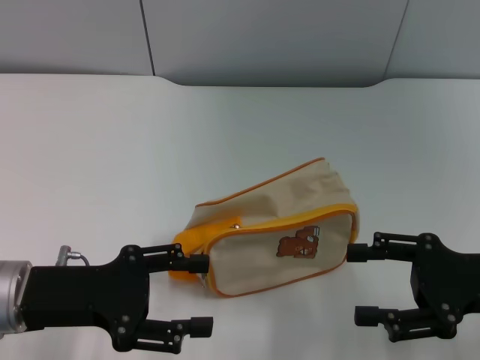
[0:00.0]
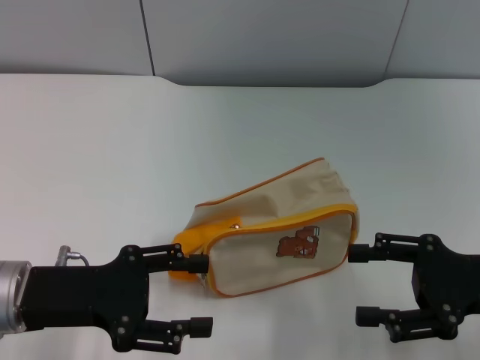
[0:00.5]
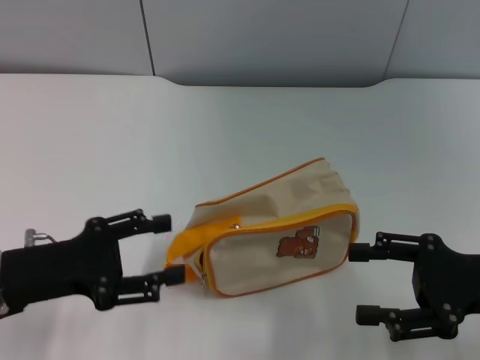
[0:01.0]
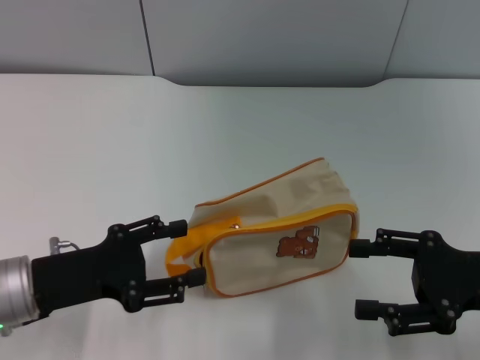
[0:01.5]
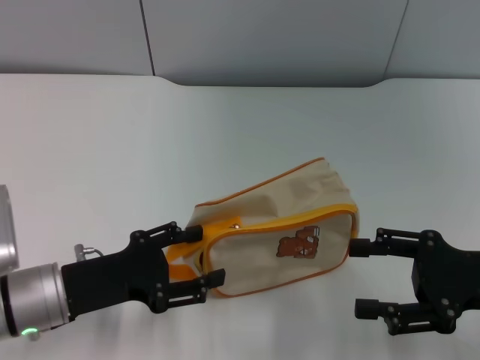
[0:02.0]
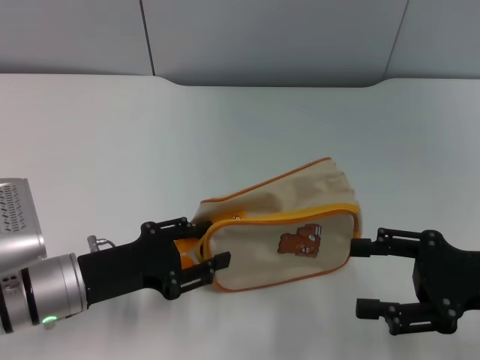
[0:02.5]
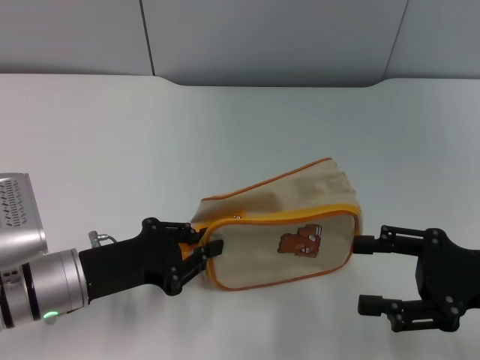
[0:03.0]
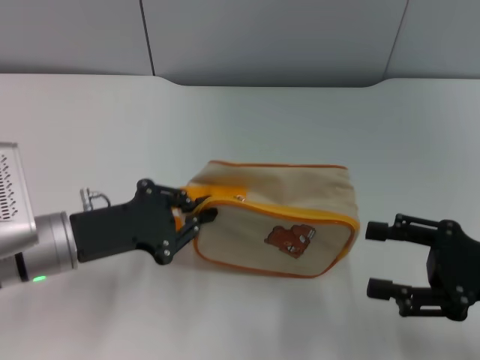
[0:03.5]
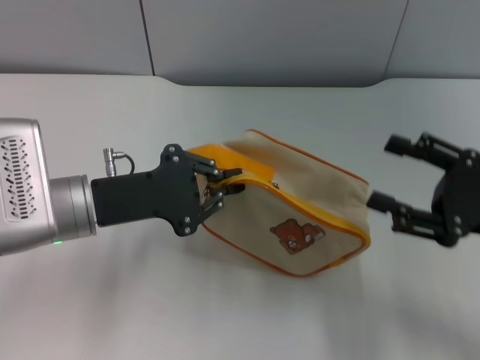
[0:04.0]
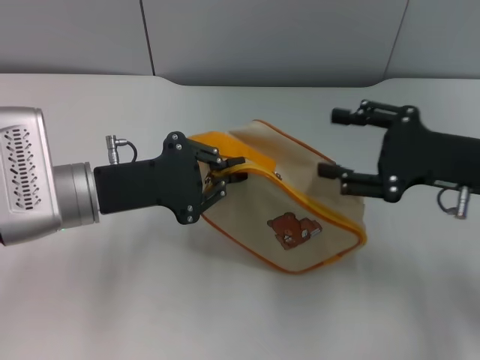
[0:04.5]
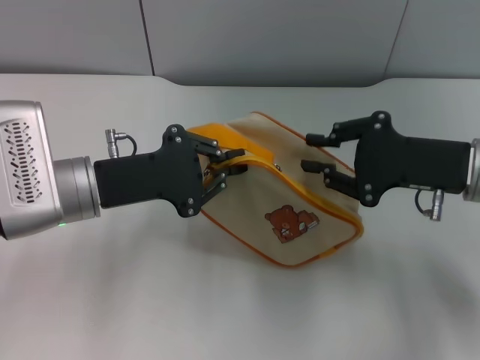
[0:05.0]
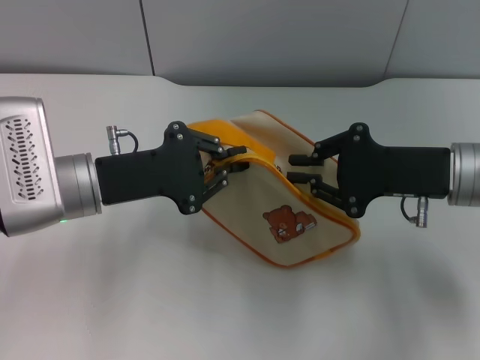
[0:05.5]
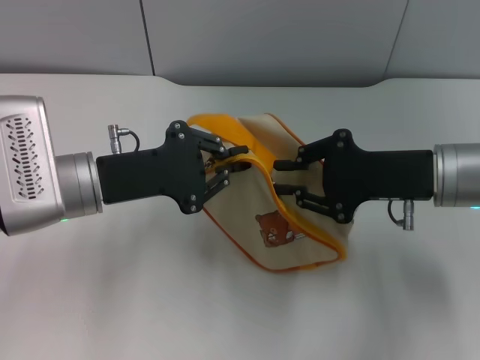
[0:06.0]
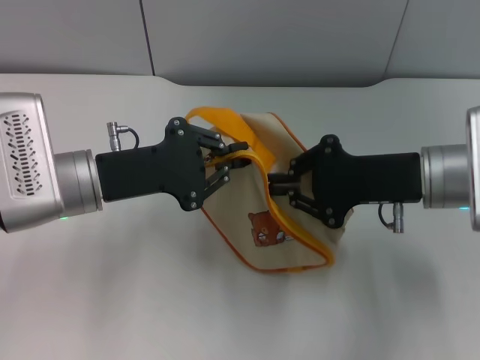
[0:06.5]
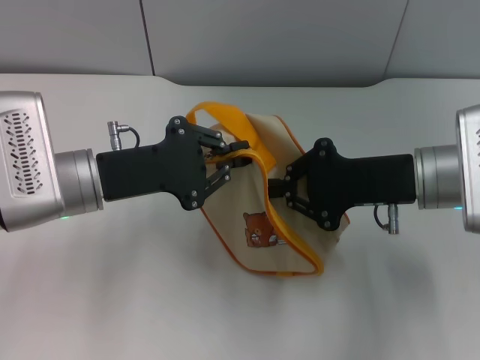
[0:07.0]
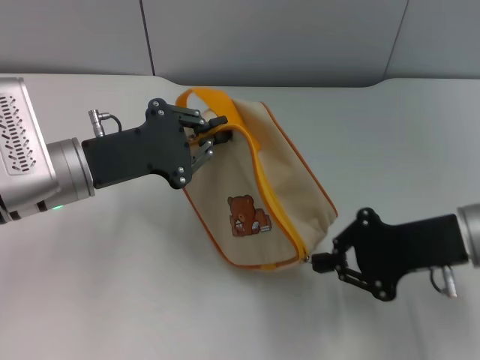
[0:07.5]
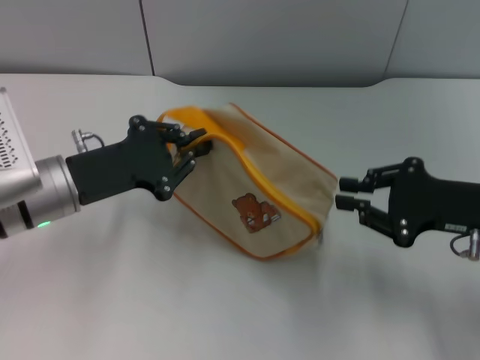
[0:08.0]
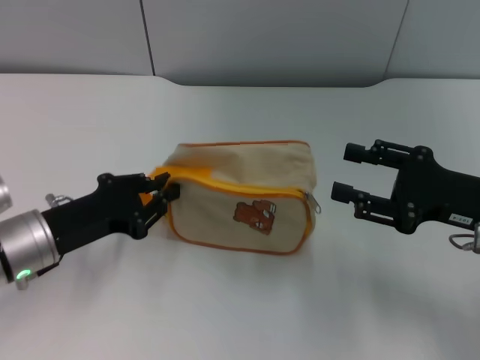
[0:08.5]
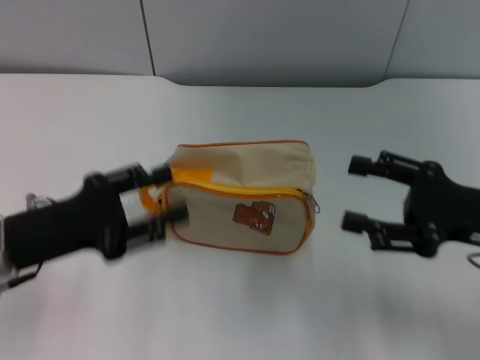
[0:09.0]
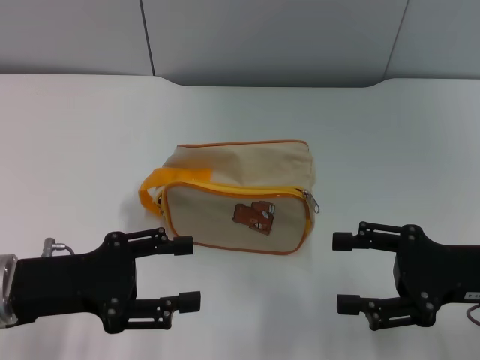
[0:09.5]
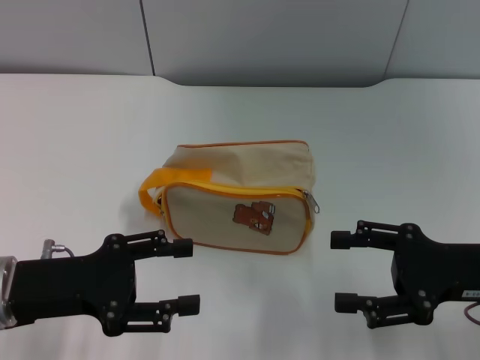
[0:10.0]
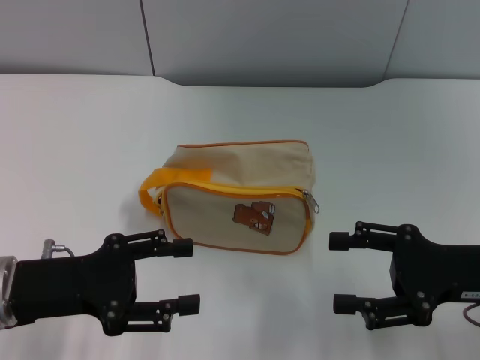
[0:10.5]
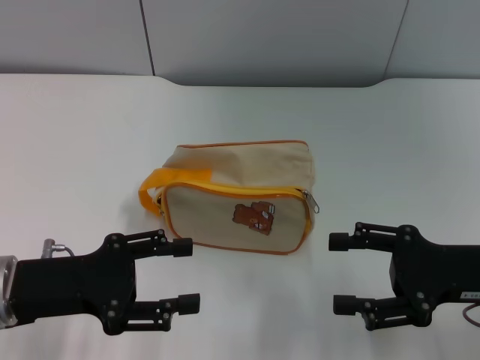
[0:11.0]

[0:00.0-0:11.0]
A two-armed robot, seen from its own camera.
Step, 0:00.0 to 0:04.0: Pick up the bag with left gripper.
Step, 0:04.5 to 0:08.0: Unzip the zipper of bag with right gripper.
Step, 0:08.5 to 0:09.0: Place the bag on the table with left gripper.
0:00.0 to 0:02.0: The grippers stay close to where they were, moving slightly.
0:02.0 to 0:03.5: The left gripper closes up.
0:03.5 to 0:05.5: The right gripper goes some 10 cm forward and to the left, and closes up. The left gripper moves roughly 5 cm.
0:07.5 to 0:09.0: The left gripper travels backward and to the left by approximately 10 cm, and opens; the right gripper changes place by roughly 5 cm, and opens.
0:09.0 to 0:11.0: The left gripper opens.

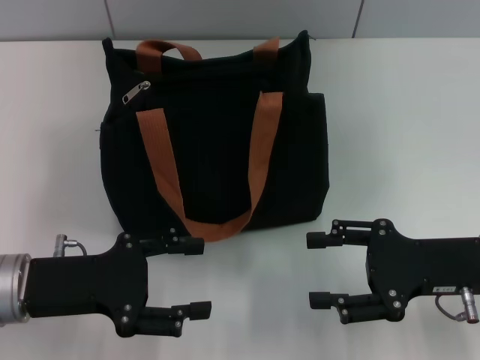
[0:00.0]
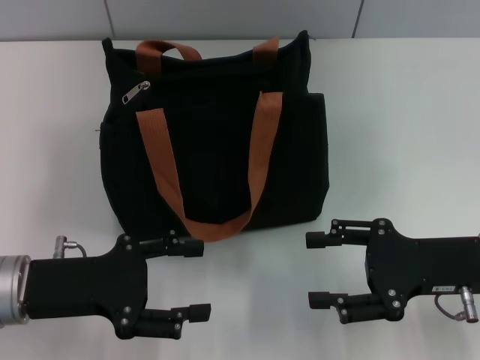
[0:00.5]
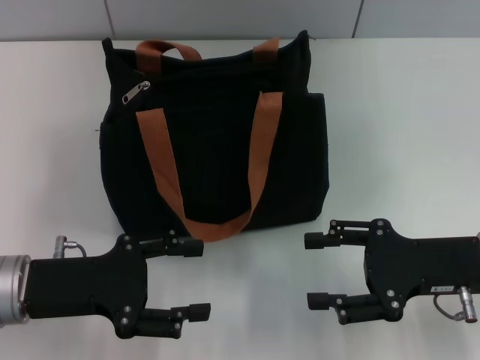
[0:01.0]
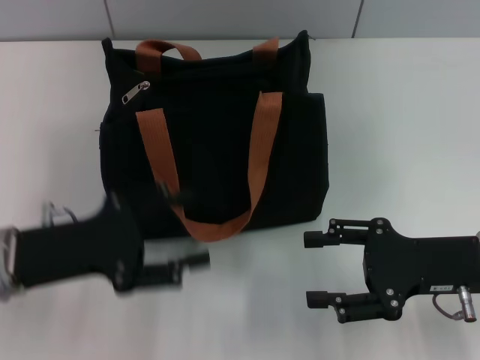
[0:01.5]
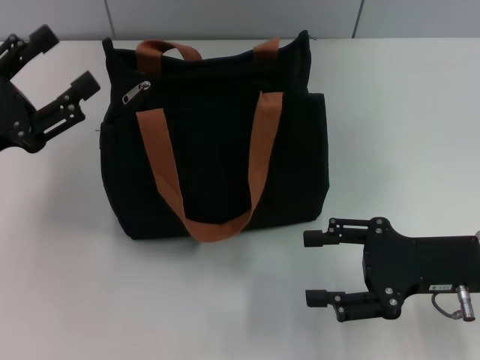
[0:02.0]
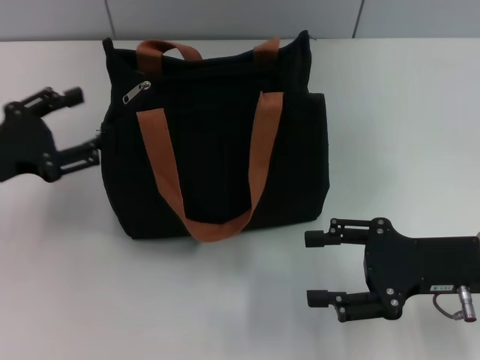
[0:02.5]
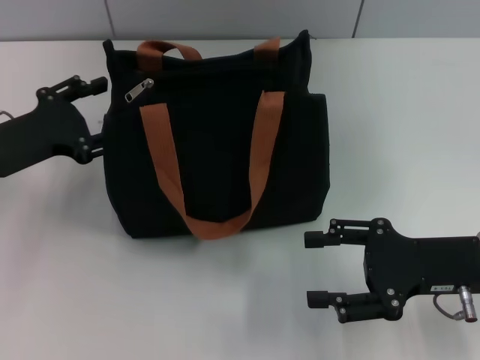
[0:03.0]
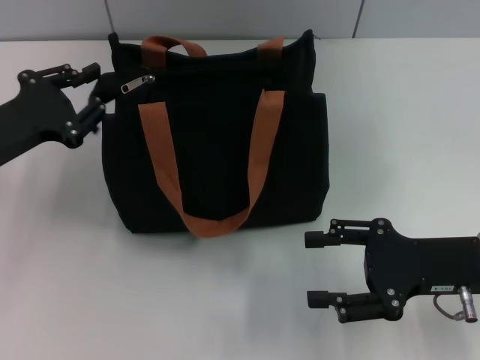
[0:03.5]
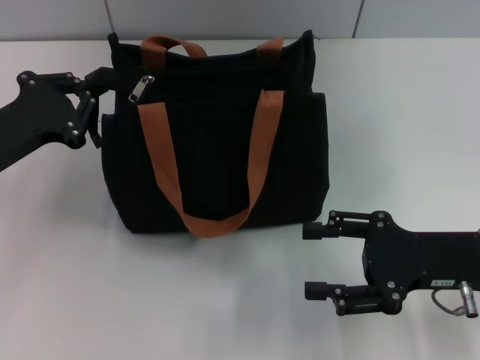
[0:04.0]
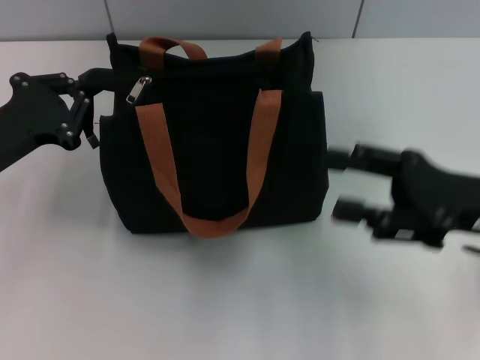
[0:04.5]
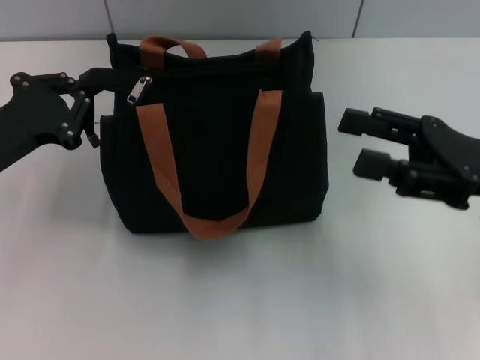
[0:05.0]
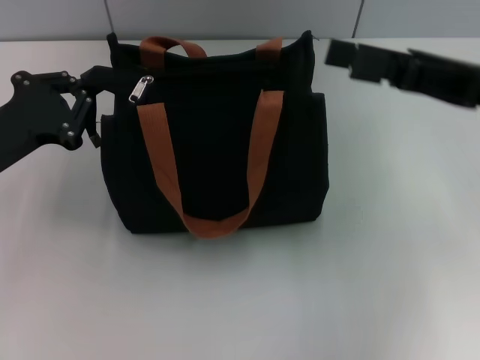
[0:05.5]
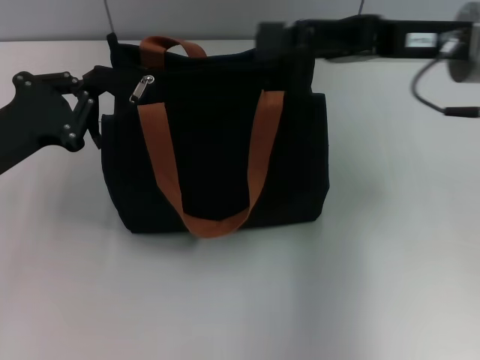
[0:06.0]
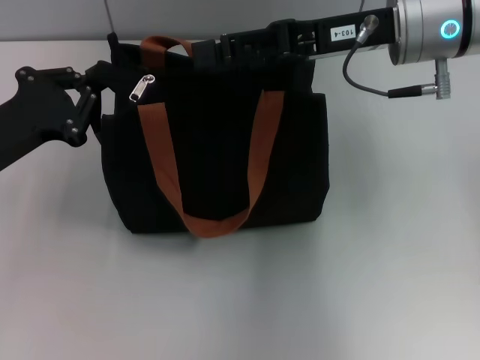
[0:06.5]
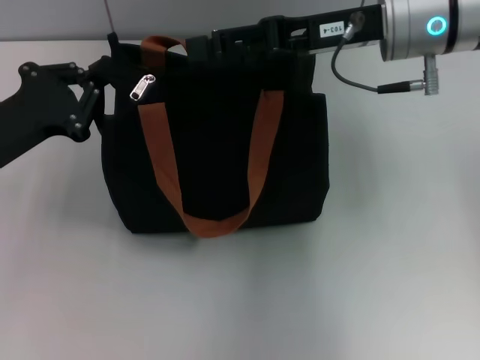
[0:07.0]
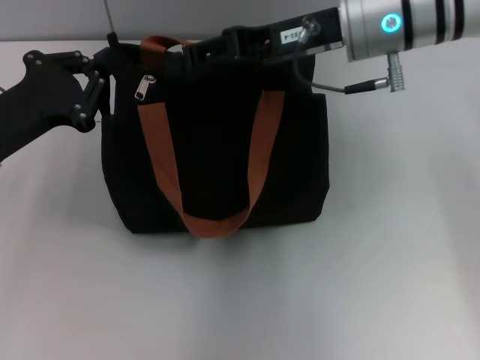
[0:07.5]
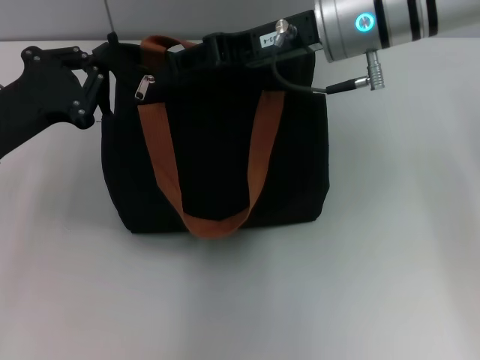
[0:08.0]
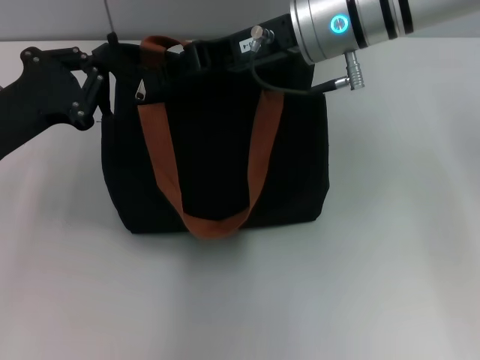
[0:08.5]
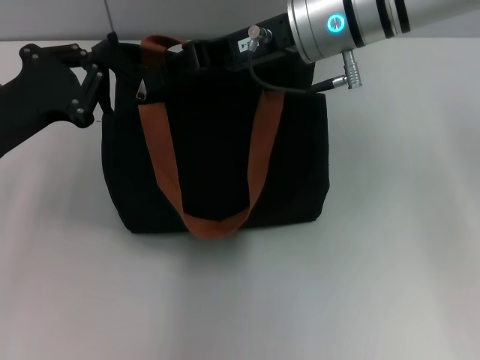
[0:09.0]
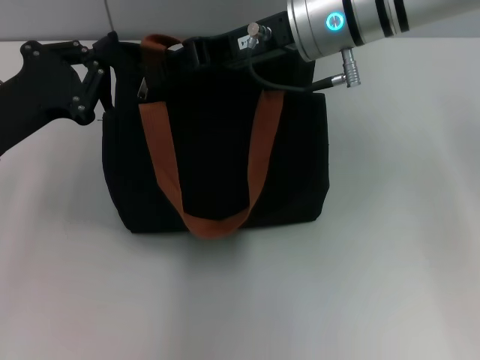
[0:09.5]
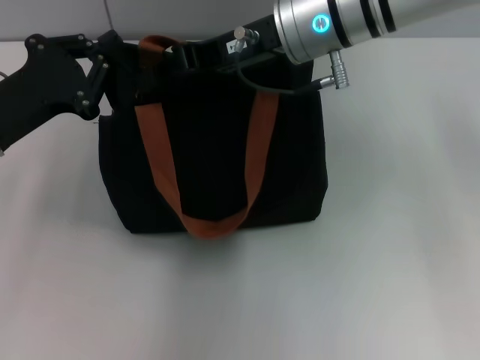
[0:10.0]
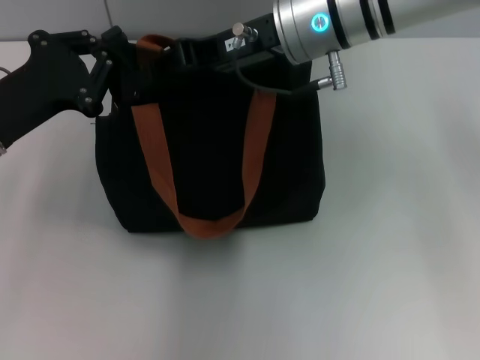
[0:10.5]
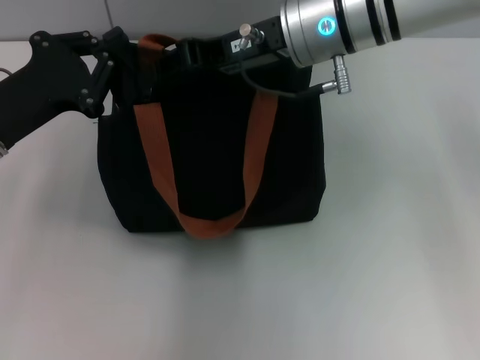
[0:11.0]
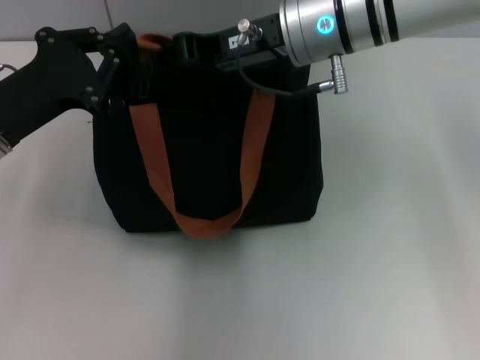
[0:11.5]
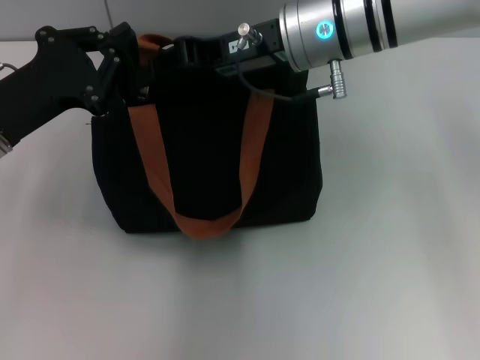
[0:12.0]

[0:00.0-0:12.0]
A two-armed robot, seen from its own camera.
0:00.0 to 0:02.0: The left gripper travels to the left by some 5 cm.
0:02.0 to 0:04.0: The left gripper closes.
0:04.0 to 0:06.0: The right gripper moves upward and forward, some 15 cm.
0:06.0 to 0:08.0: The right gripper shifts some 10 cm to the left, and closes up.
0:08.0 to 0:12.0: The grippers move only a little.

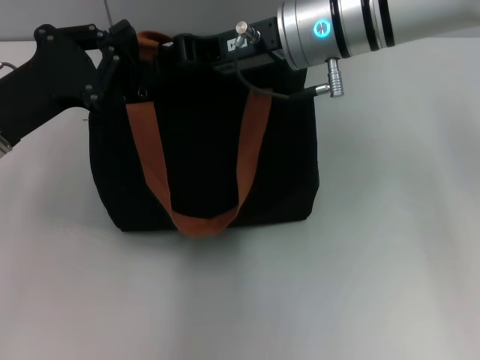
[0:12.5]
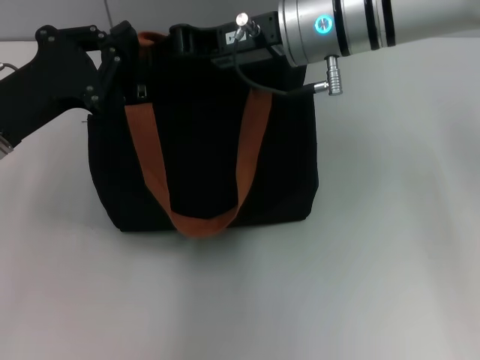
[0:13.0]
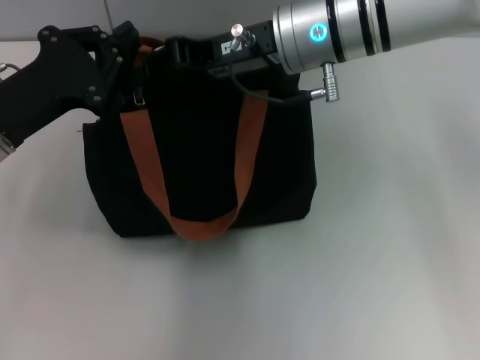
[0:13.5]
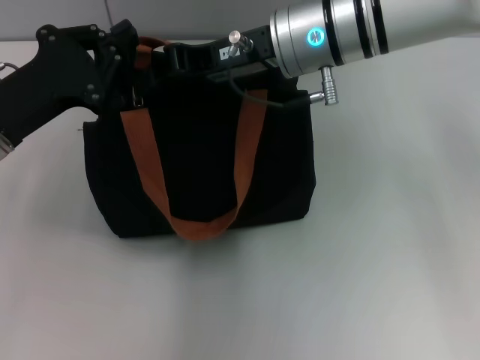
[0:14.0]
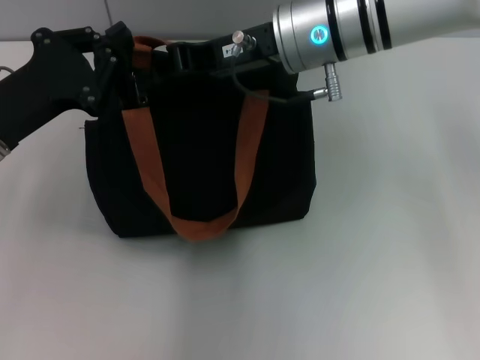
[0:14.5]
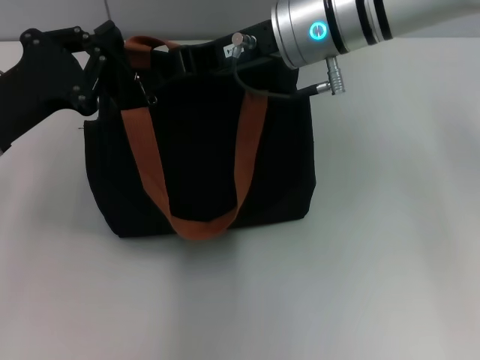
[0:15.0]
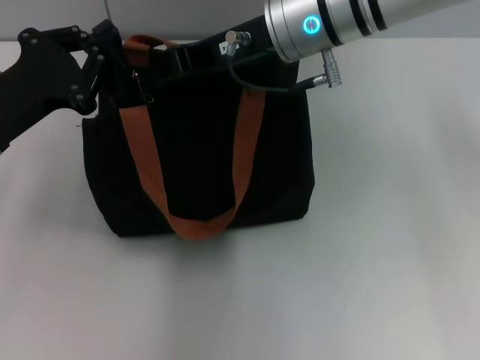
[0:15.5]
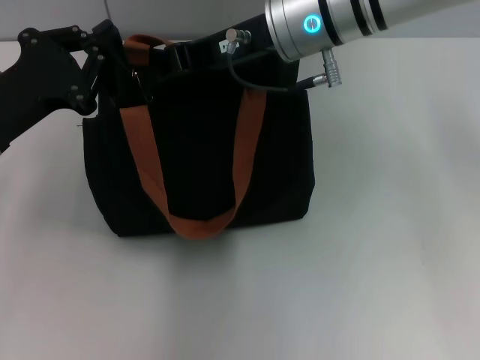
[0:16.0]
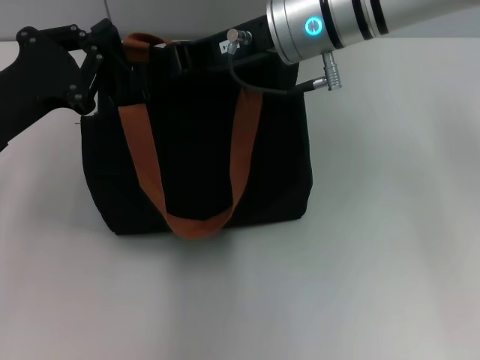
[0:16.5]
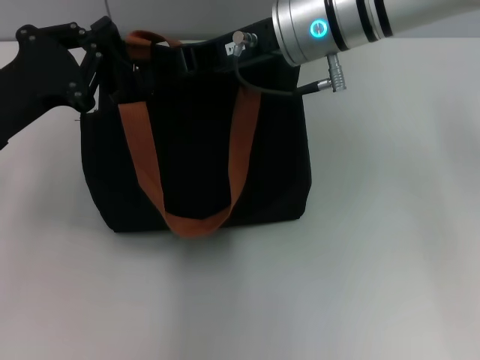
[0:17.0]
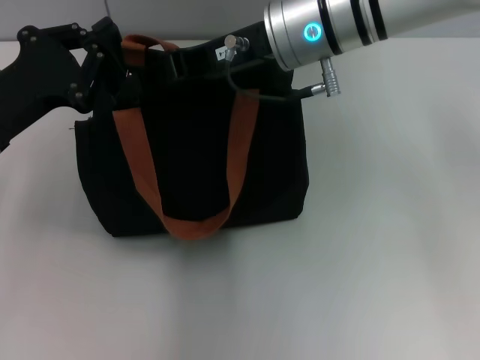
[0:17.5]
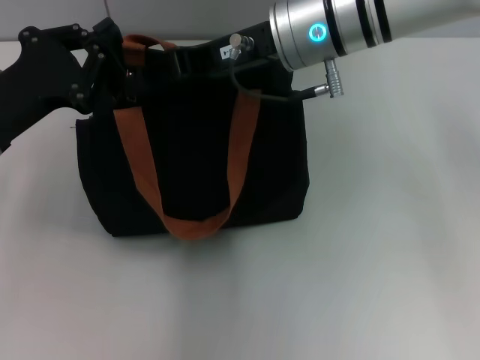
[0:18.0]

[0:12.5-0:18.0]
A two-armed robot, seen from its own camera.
0:12.5 to 0:16.0: The grippers stay close to where they were, moving slightly.
0:16.0 to 0:18.0: The right gripper opens.
